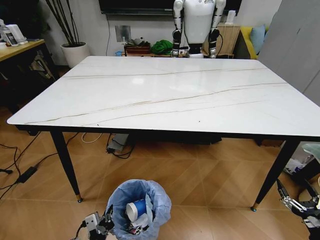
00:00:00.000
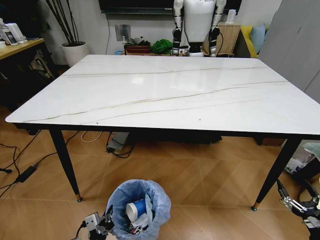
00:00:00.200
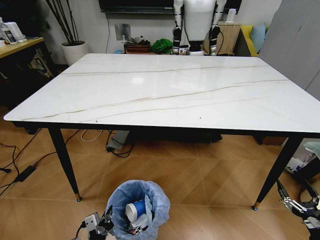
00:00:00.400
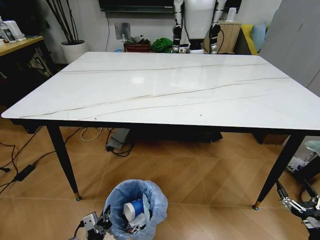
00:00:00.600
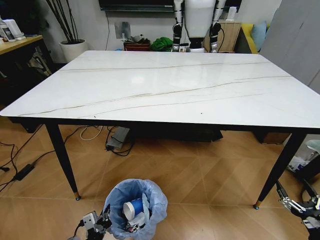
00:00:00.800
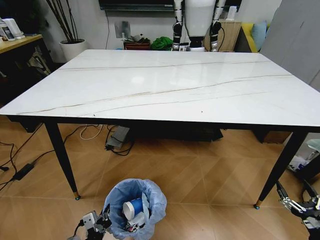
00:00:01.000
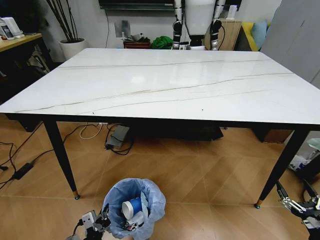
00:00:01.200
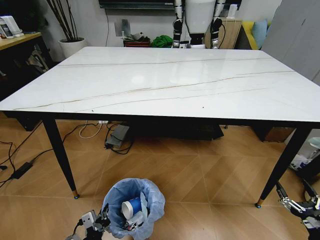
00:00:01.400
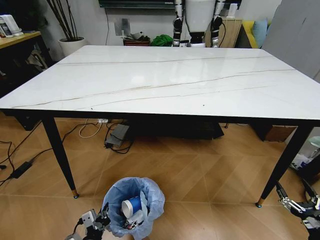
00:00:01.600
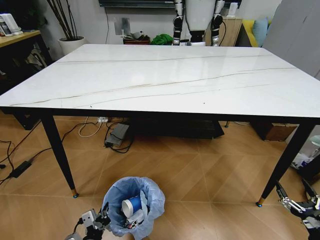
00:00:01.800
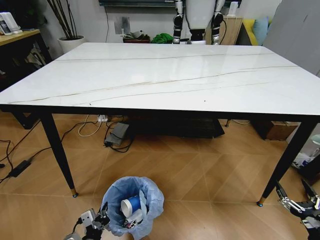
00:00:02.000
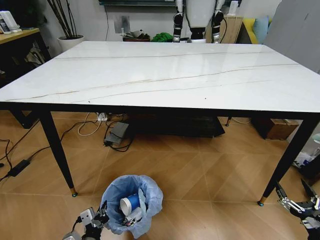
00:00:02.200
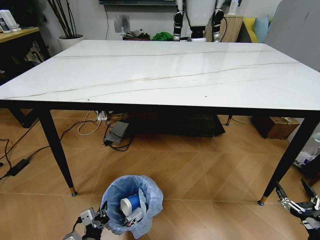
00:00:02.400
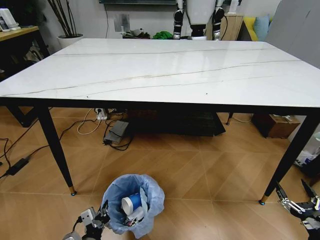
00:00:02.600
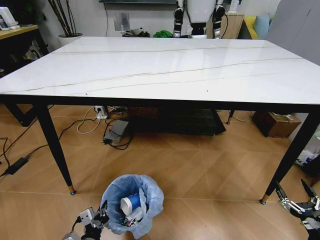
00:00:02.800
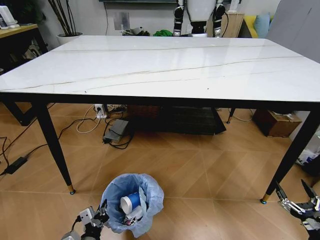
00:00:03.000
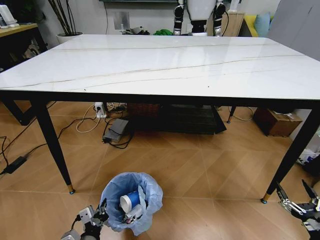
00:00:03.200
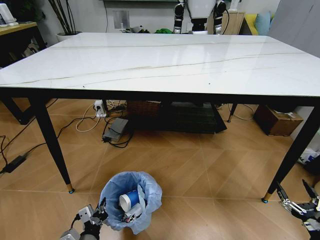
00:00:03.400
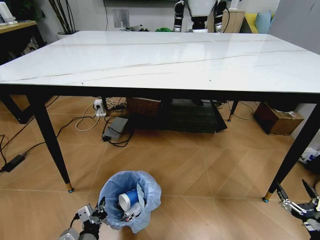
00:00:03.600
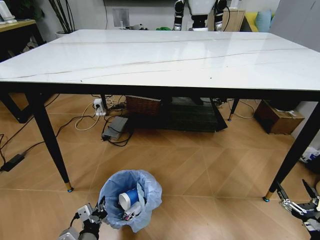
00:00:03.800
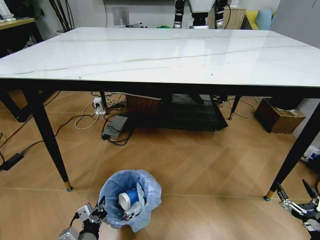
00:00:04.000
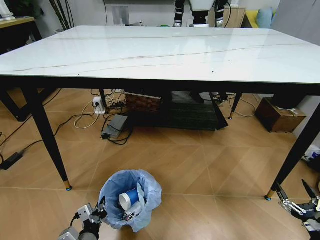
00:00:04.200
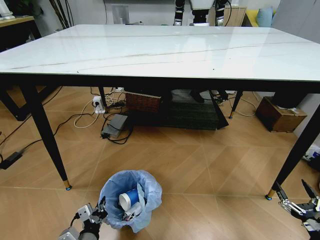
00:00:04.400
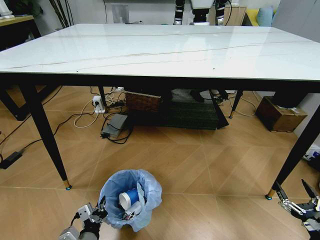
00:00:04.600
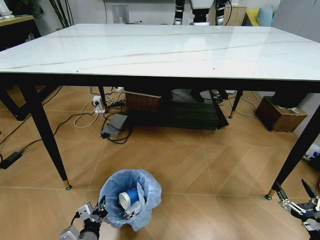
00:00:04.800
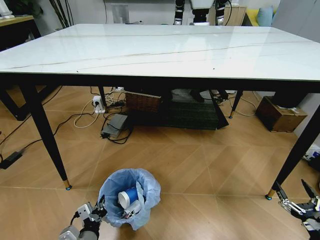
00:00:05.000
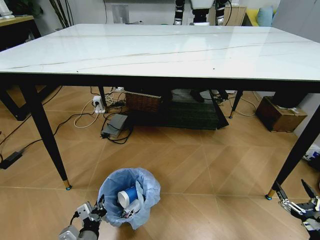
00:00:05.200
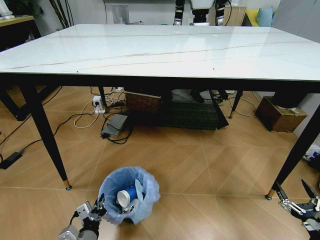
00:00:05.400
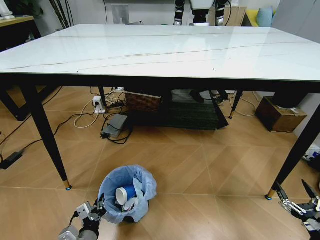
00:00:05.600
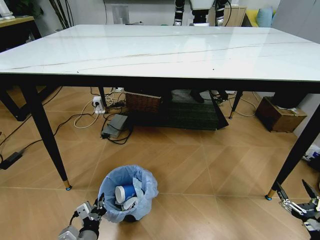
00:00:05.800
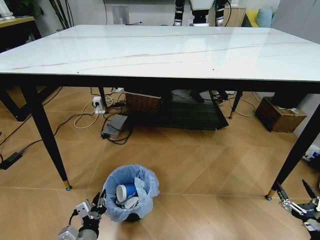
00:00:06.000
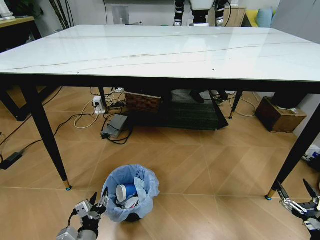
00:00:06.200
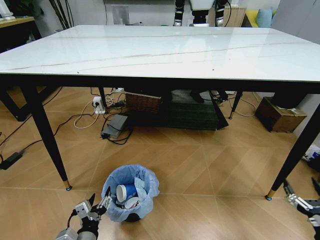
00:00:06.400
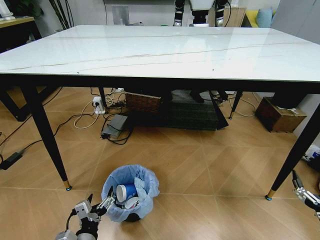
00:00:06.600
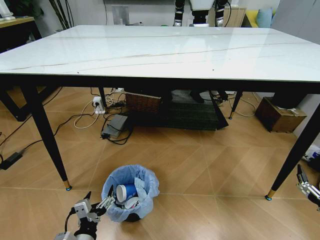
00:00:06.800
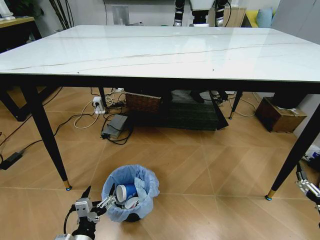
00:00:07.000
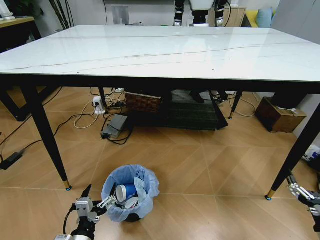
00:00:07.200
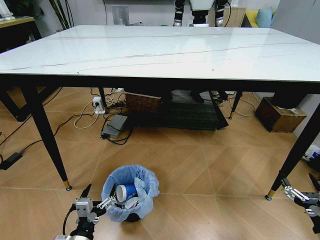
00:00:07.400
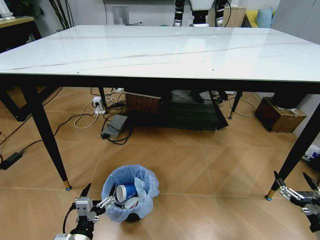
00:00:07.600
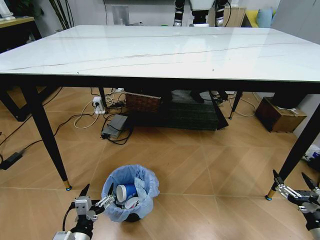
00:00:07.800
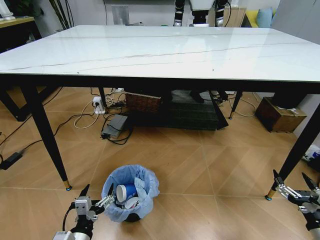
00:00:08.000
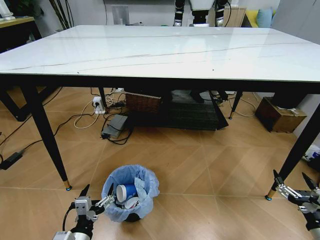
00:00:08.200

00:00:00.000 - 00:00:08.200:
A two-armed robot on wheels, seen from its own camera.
Task of the whole recording: Pick up the trash bin and place the trash from the table into it.
00:00:05.000 - 00:00:06.600: The left gripper opens.

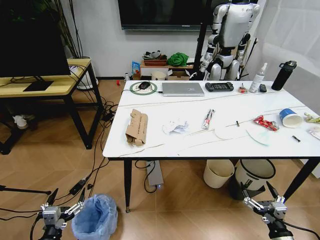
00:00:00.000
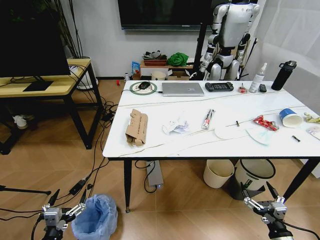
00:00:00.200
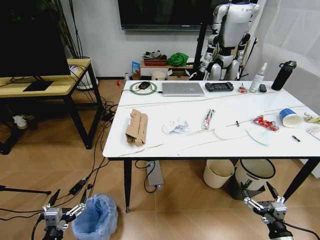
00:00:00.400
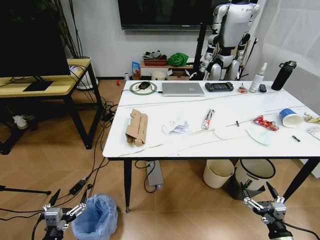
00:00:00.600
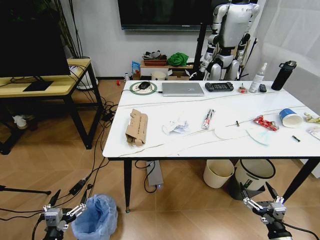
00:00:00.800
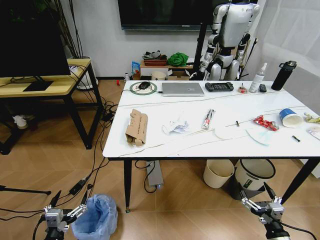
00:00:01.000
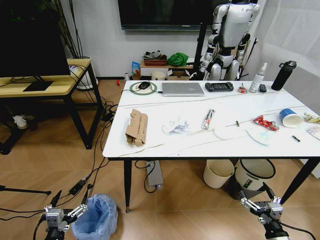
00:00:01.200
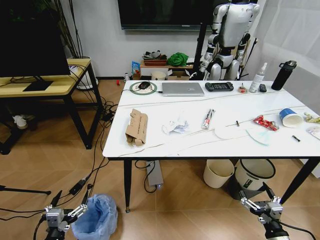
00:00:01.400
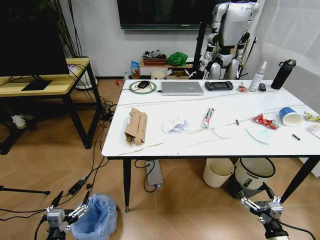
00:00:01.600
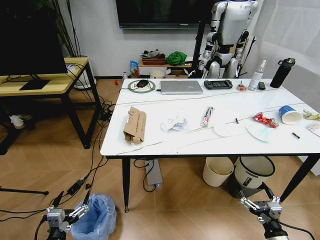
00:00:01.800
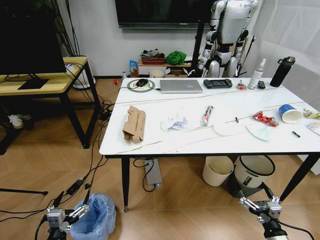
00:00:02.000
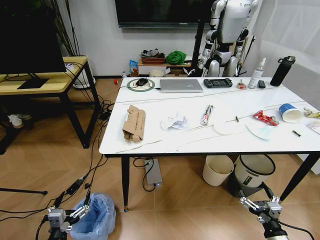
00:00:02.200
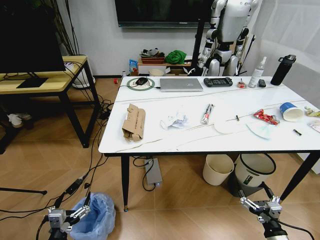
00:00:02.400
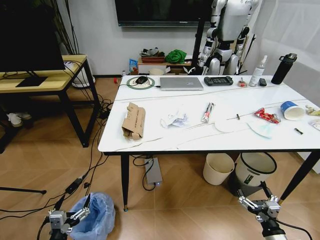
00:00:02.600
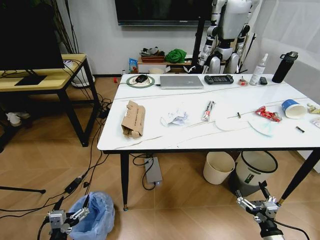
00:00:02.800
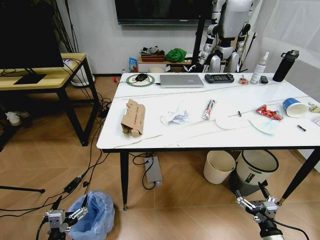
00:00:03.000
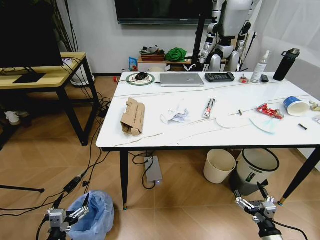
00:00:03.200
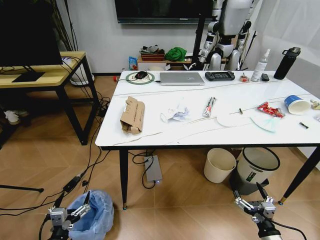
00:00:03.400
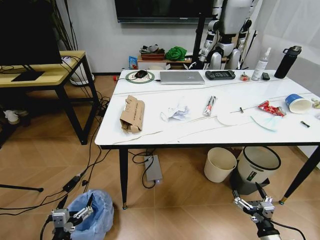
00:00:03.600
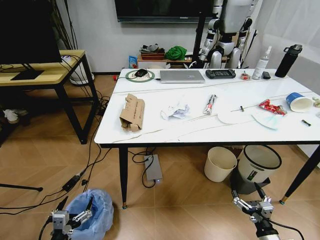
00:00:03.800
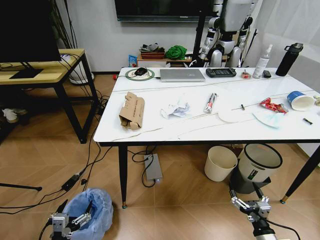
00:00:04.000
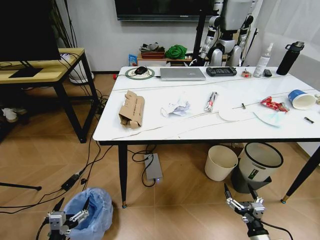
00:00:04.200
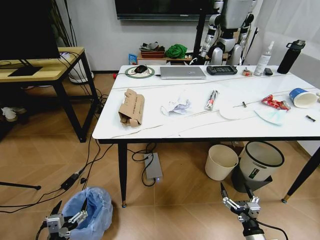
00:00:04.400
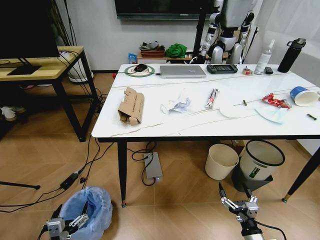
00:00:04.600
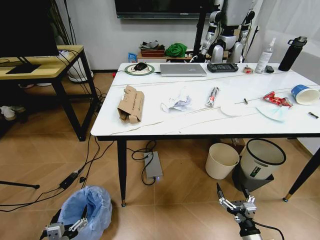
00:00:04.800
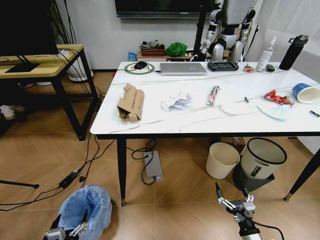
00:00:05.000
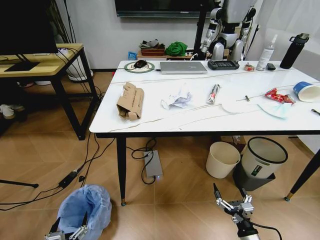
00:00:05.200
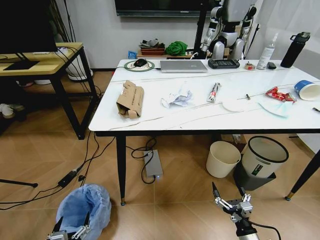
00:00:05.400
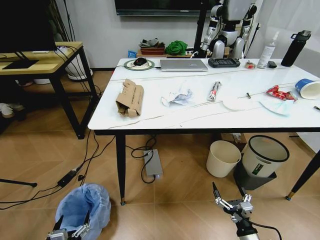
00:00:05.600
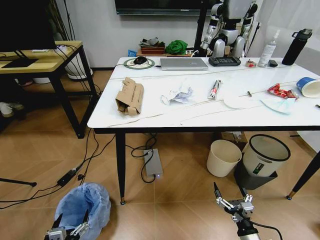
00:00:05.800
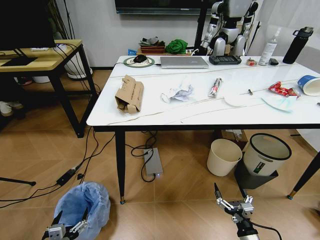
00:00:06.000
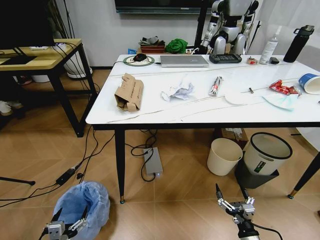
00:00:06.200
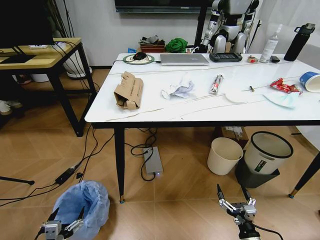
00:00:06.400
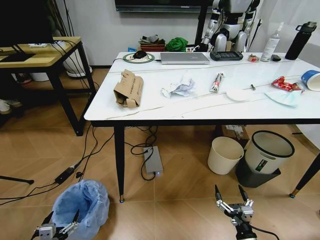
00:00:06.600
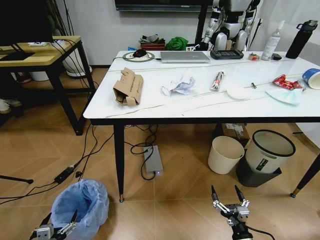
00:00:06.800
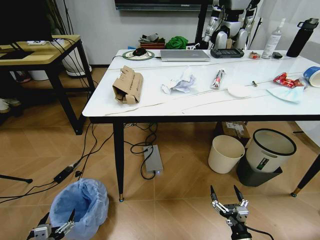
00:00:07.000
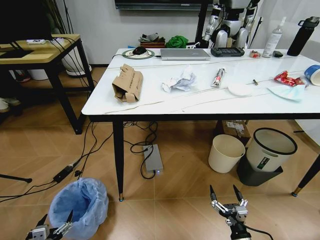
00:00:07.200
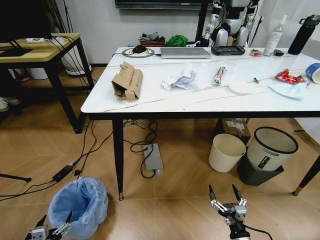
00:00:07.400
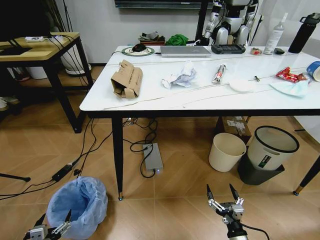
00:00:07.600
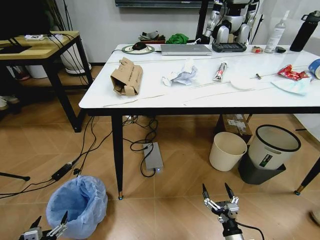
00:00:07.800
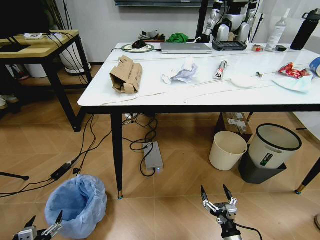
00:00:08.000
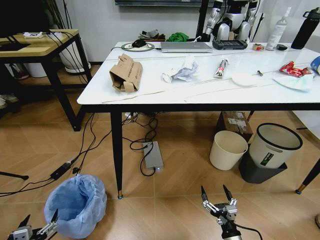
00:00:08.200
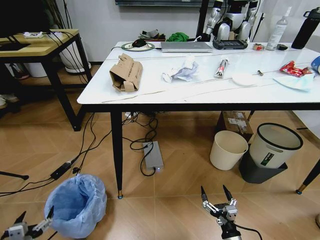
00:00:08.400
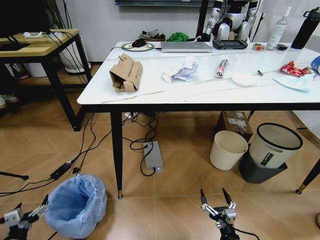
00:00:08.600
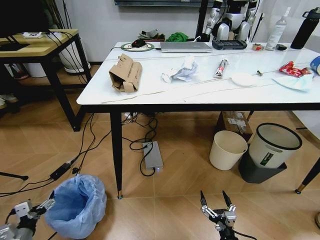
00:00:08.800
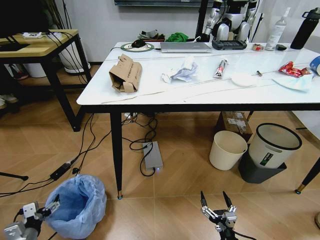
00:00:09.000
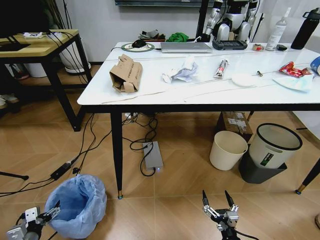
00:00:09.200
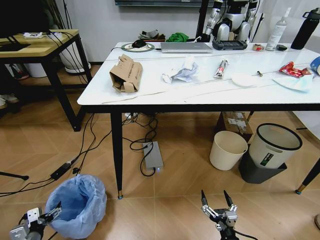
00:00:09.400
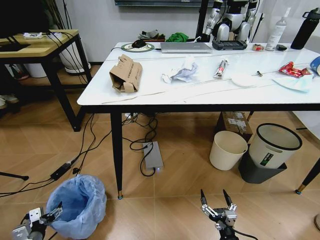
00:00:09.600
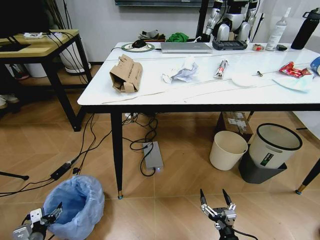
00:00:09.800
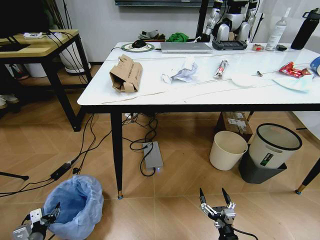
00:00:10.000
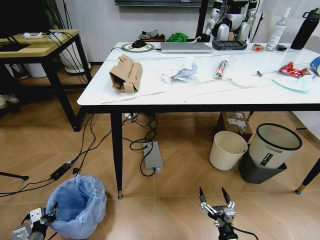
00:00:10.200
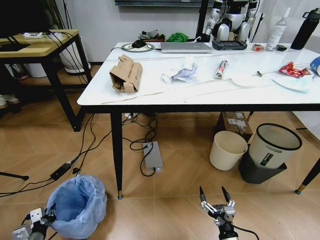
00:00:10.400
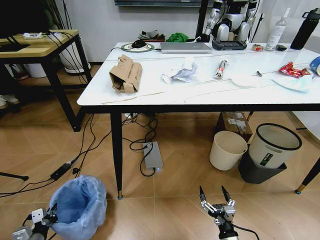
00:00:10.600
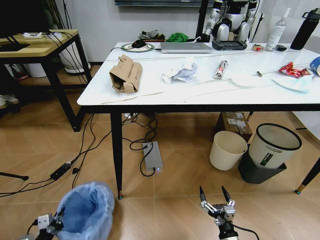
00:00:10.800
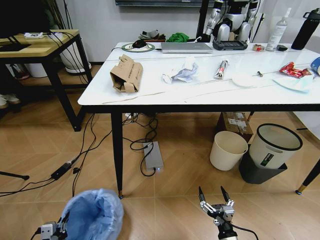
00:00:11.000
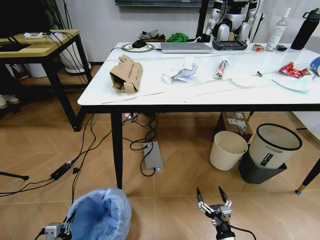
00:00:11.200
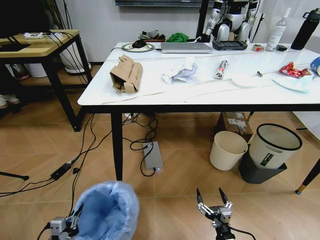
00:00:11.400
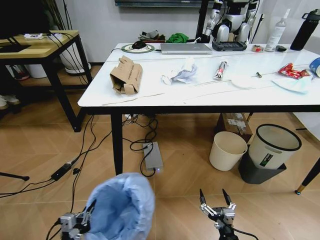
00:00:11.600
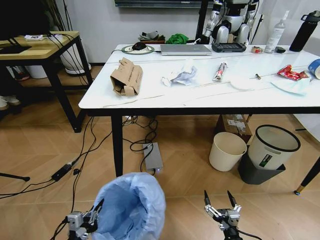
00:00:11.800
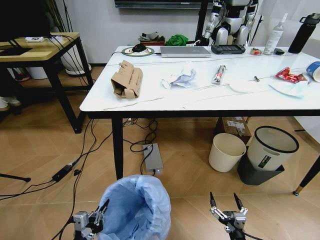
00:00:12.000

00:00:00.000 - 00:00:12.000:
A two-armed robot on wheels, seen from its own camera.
Task of the whole recording: Pick up the trash bin and place the trash from the table into it.
00:00:03.000 - 00:00:04.400: The right gripper shifts by approximately 5 cm.
00:00:06.000 - 00:00:07.600: The left gripper moves to the left, roughly 5 cm.
00:00:07.600 - 00:00:09.000: The left gripper is displaced forward and to the left by some 15 cm.
00:00:09.000 - 00:00:10.400: The left gripper closes.
00:00:10.400 - 00:00:12.000: The left gripper goes roughly 20 cm to the right, upward and backward.

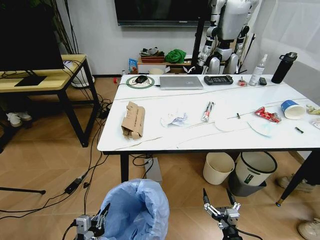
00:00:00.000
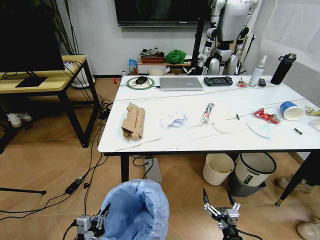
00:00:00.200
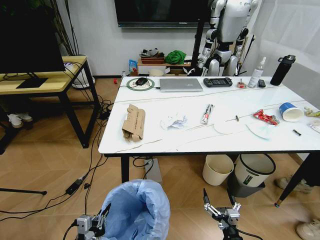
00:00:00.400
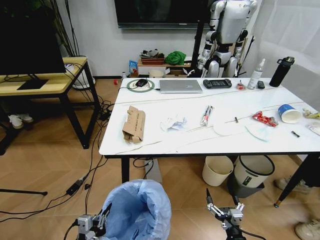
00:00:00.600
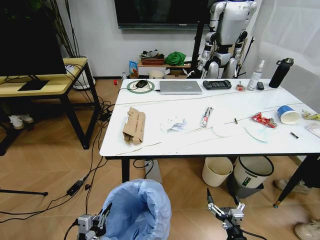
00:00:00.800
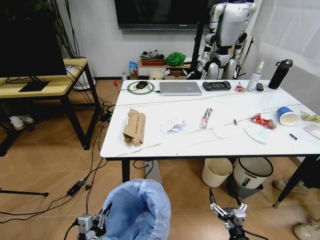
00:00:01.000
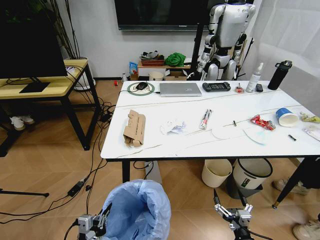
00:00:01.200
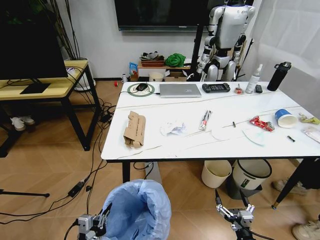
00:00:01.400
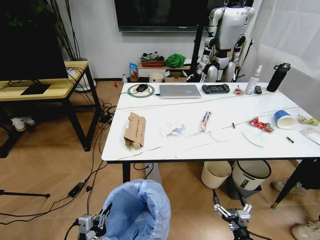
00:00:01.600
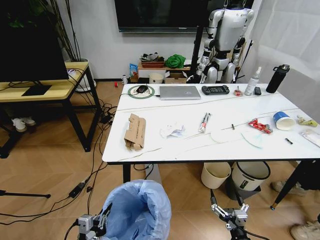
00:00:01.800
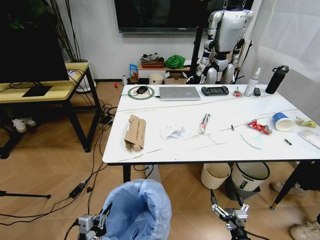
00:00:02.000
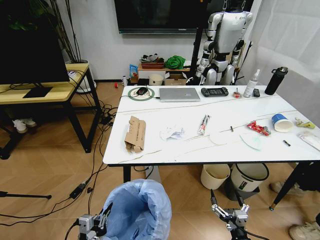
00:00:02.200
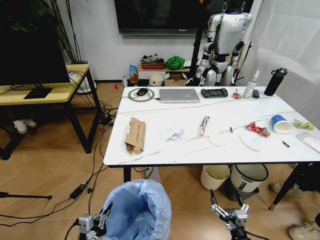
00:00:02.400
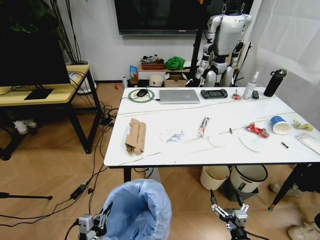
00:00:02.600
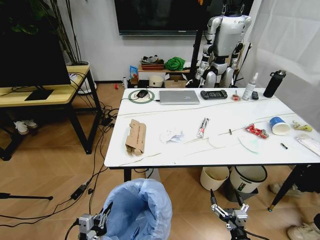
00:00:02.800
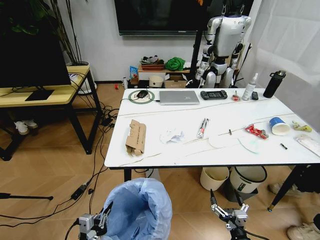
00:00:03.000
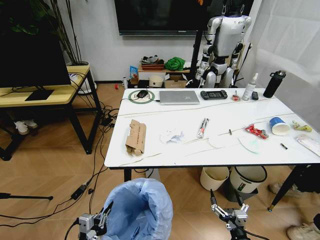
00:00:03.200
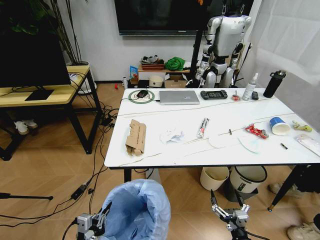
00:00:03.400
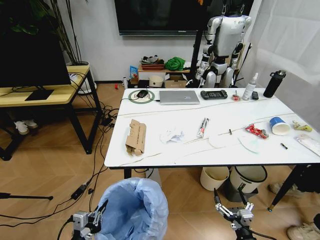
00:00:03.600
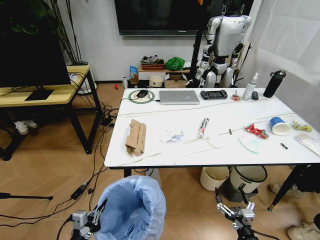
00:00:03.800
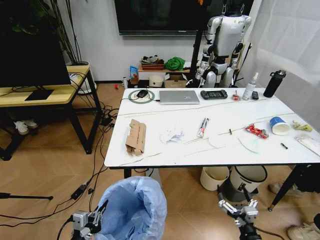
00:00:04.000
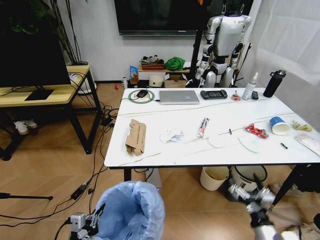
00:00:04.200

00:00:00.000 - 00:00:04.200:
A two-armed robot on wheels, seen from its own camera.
Task of the whole recording: Pick up the trash bin and place the trash from the table into it.
00:00:02.800 - 00:00:04.200: The right gripper shifts roughly 10 cm upward.
